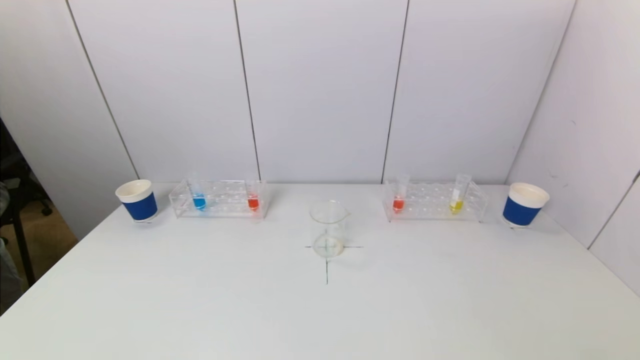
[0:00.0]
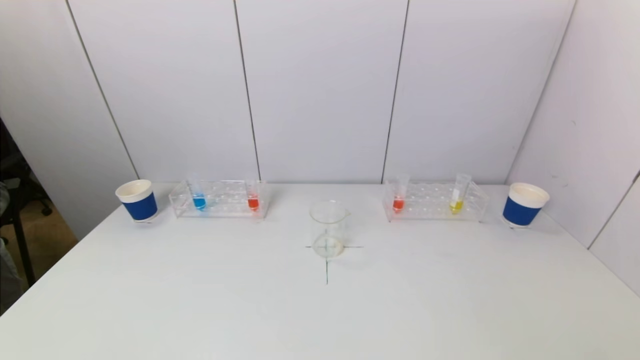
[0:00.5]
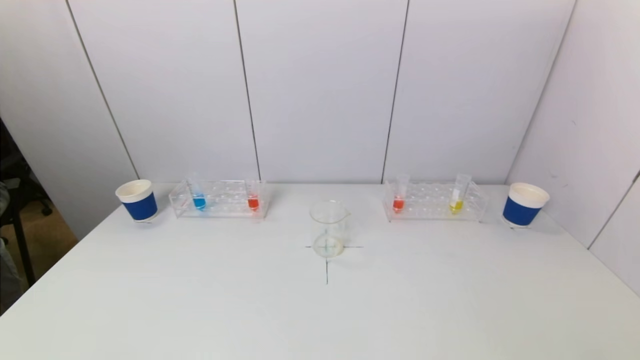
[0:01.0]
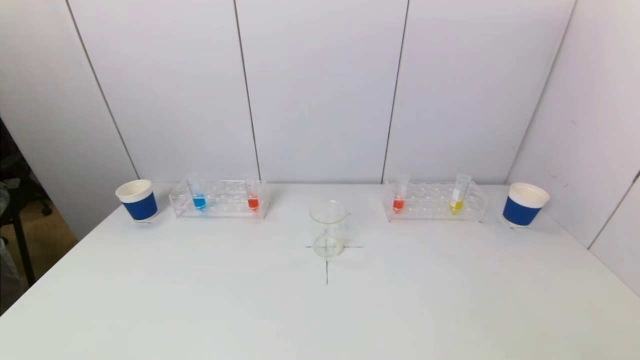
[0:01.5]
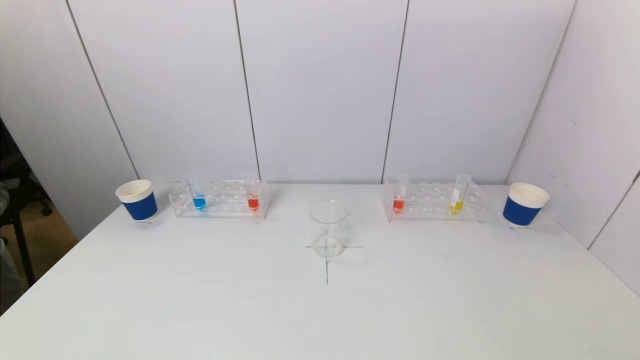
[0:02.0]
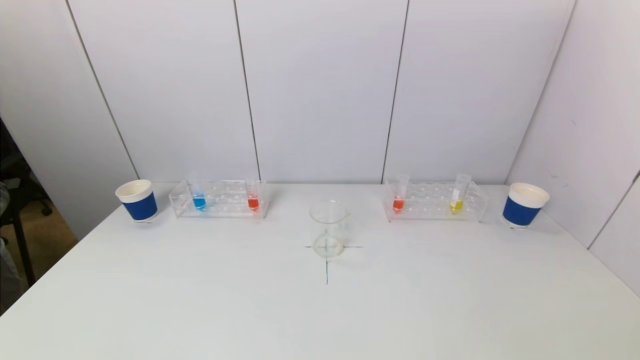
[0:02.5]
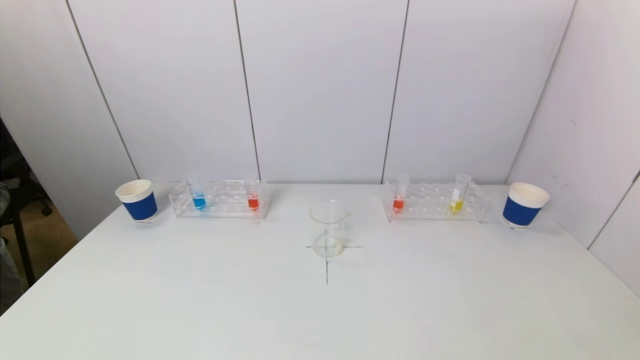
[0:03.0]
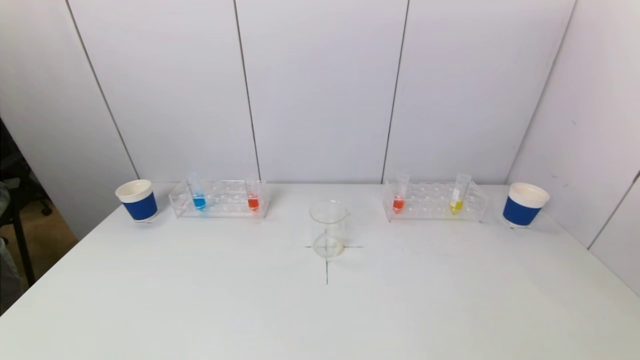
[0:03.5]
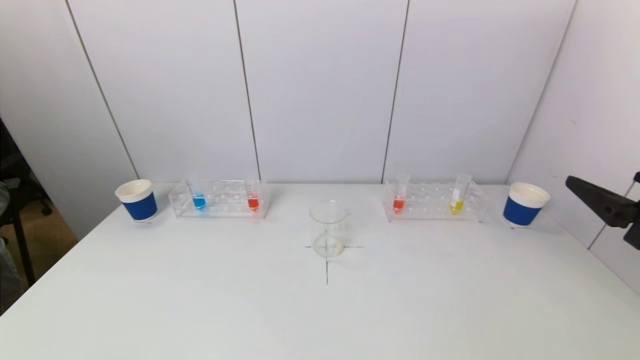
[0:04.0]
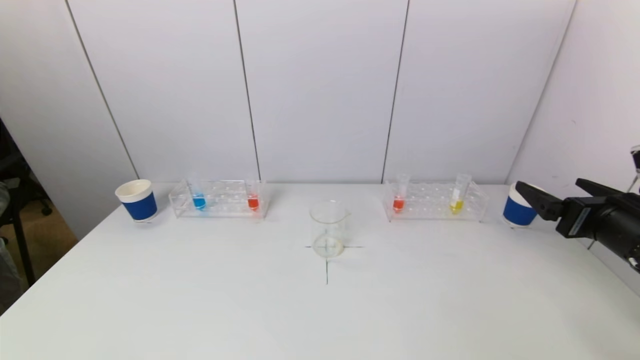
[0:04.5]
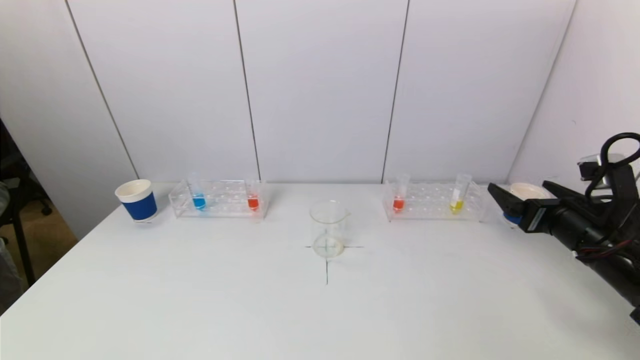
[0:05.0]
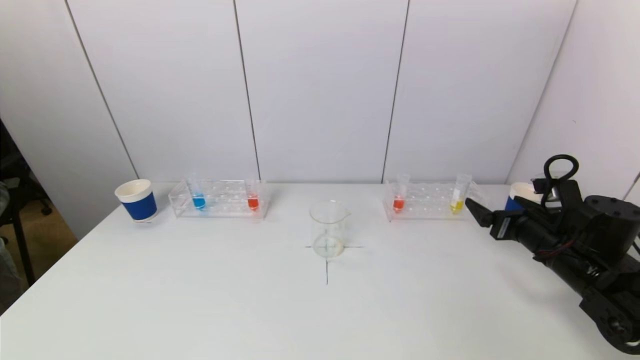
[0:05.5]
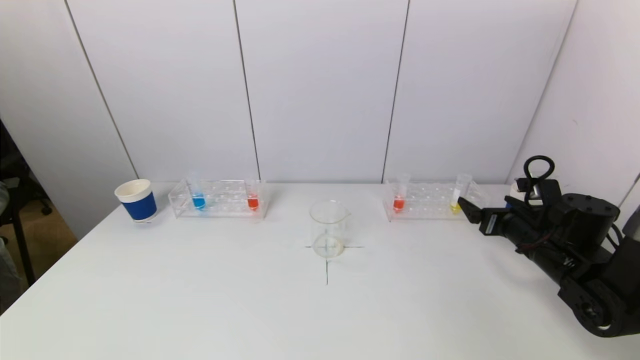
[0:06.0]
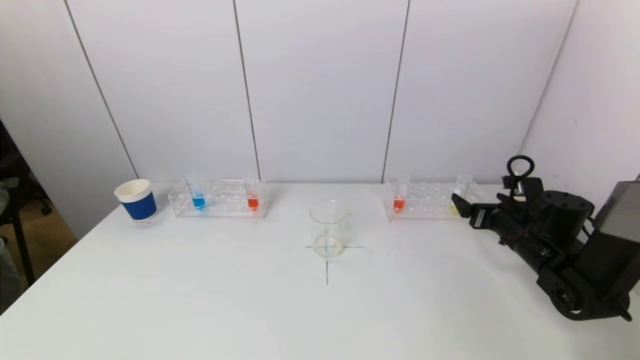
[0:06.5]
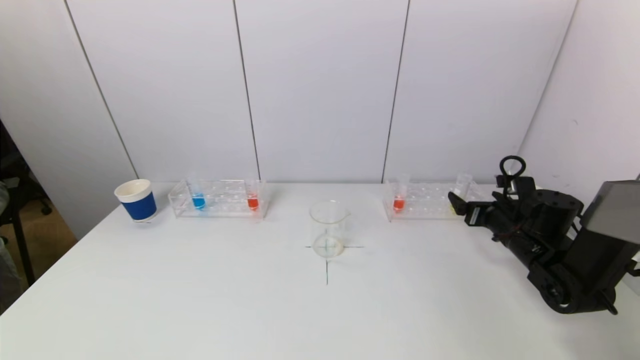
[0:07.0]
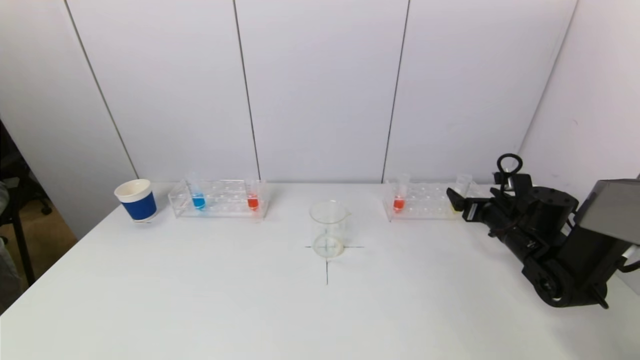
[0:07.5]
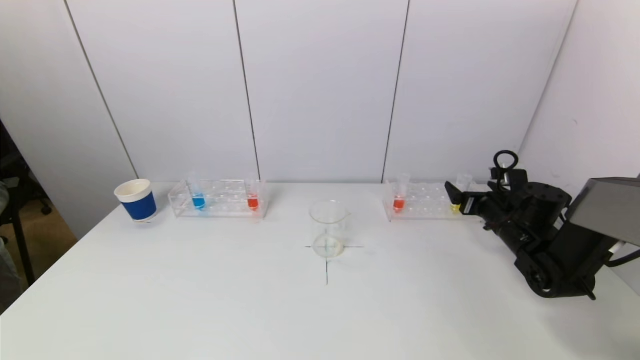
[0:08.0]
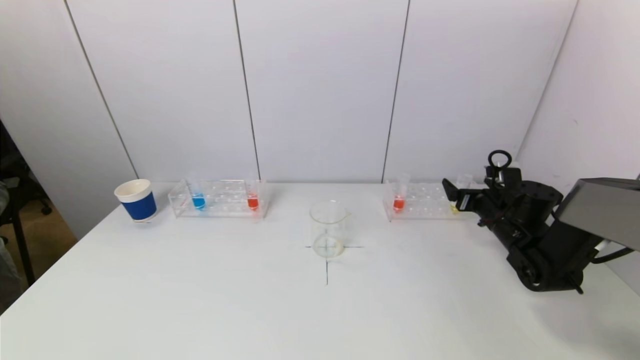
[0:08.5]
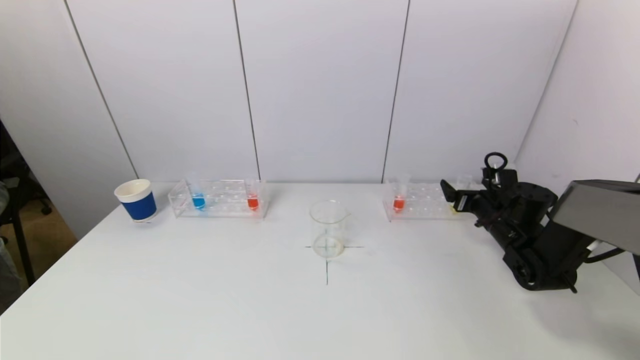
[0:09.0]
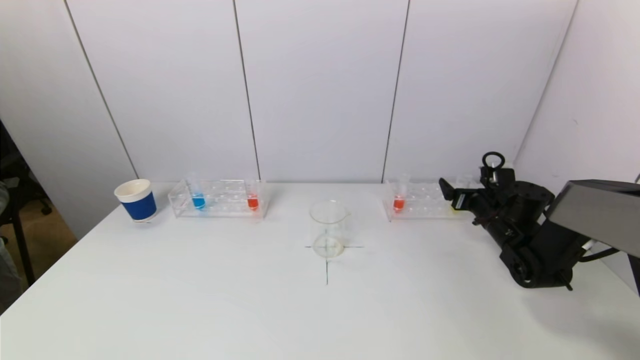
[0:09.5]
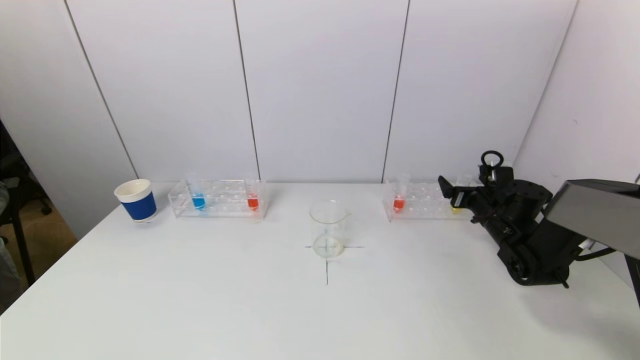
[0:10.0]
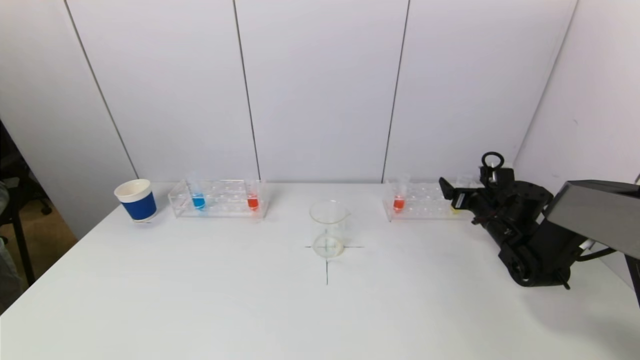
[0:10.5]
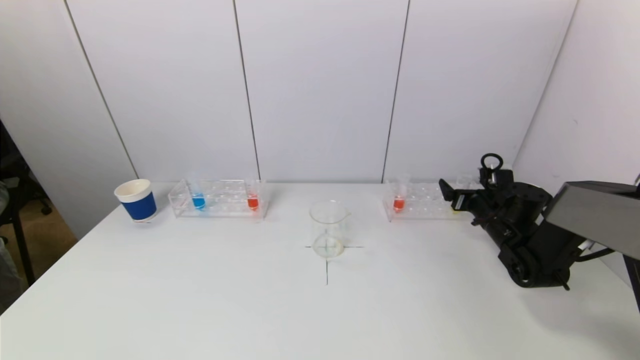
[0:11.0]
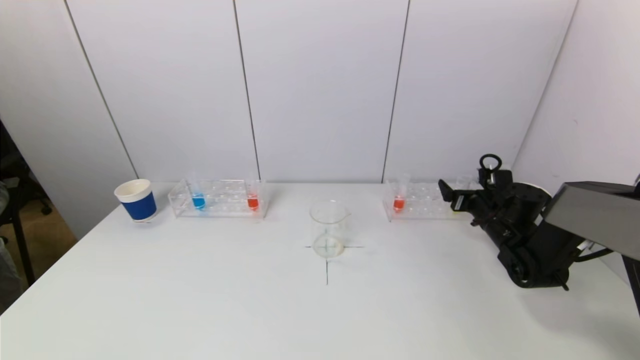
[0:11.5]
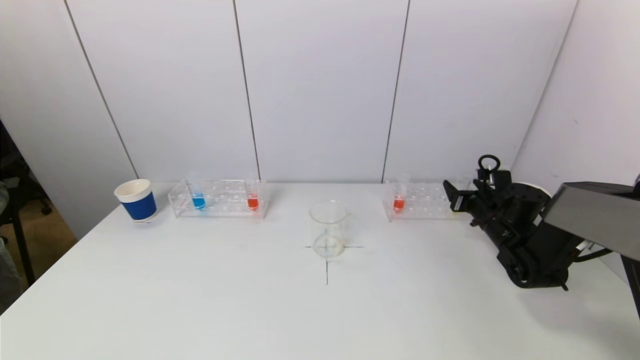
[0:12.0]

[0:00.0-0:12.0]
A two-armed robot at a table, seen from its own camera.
Task of the whole recording: pick up a test tube with pigment on left test tube rack and a test tube with pigment on right test tube rack by grippers and pour them into the beaker.
0:02.0 to 0:04.0: The right gripper goes some 20 cm forward and upward.
0:04.0 to 0:06.0: The right gripper moves forward and downward, approximately 20 cm.
0:06.0 to 0:08.0: The right gripper is displaced forward by some 5 cm.
0:08.0 to 0:10.0: The grippers make only small movements.
0:10.0 to 0:12.0: The right gripper closes its fingers.

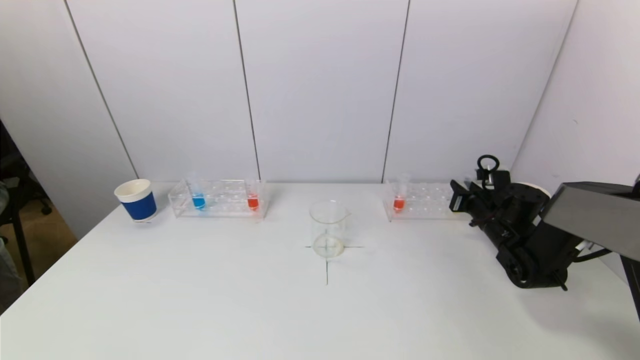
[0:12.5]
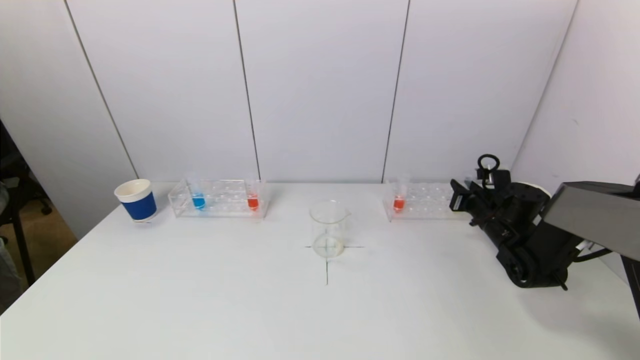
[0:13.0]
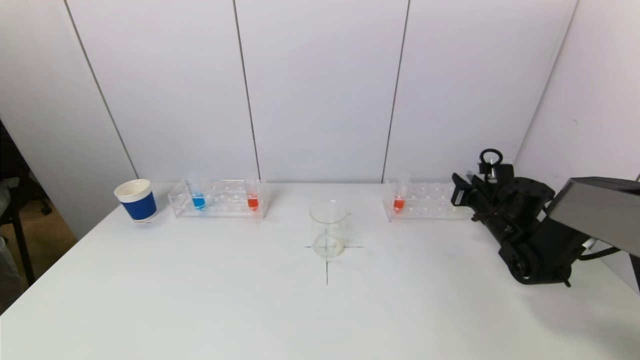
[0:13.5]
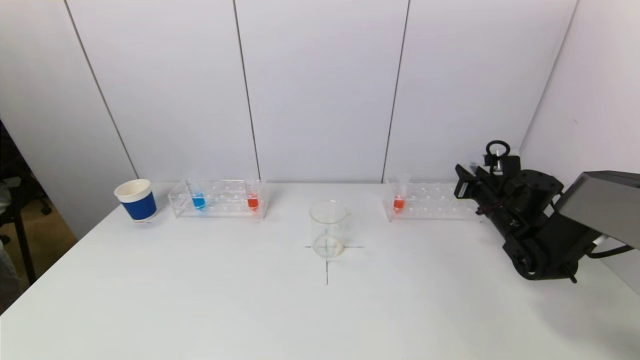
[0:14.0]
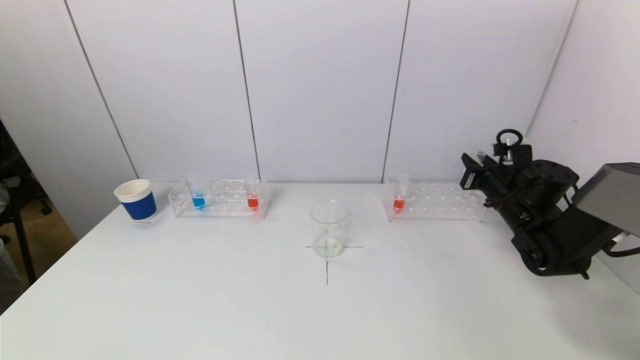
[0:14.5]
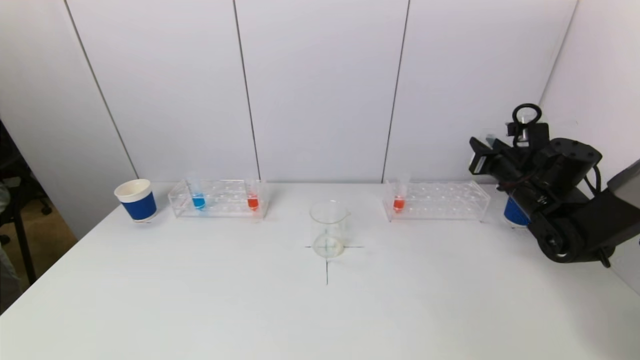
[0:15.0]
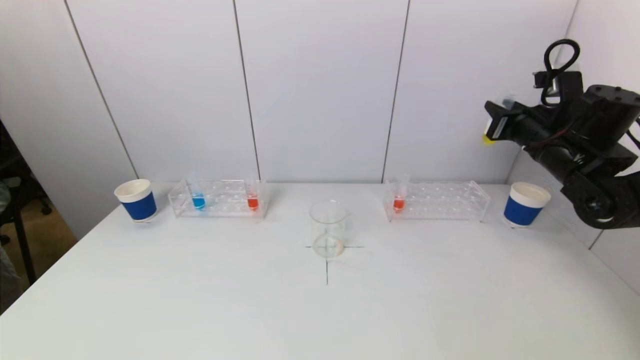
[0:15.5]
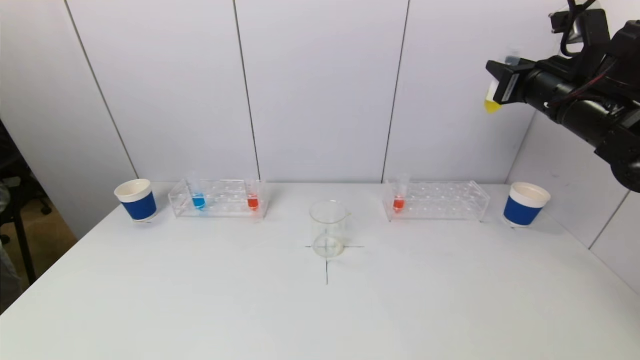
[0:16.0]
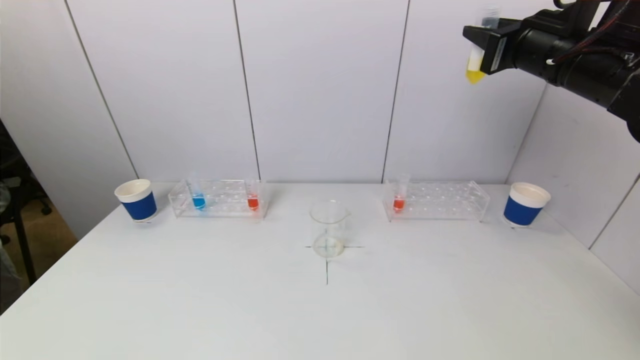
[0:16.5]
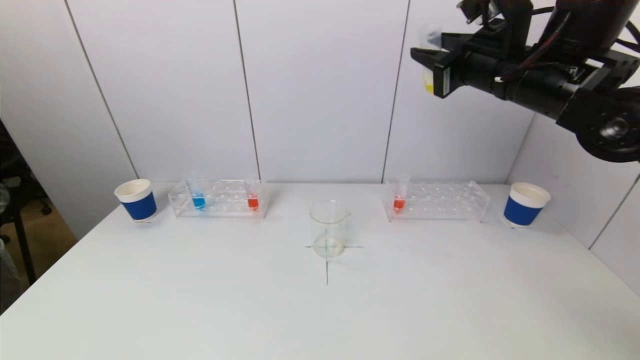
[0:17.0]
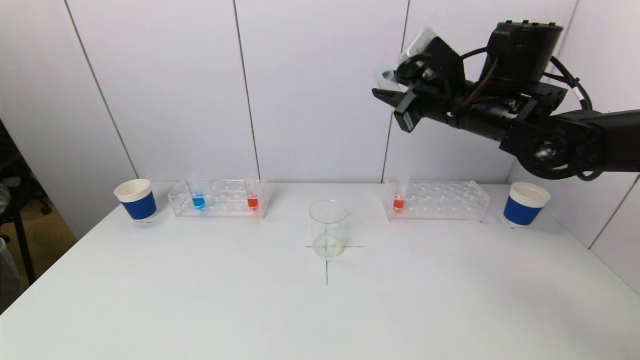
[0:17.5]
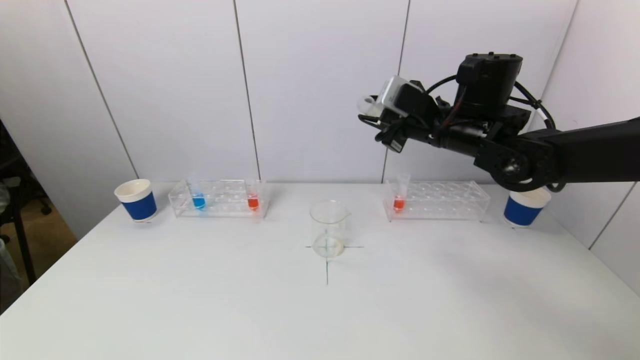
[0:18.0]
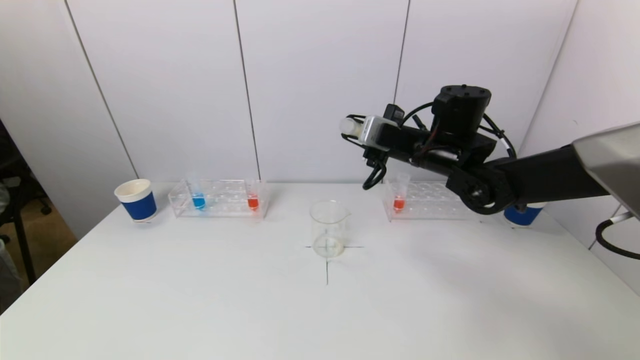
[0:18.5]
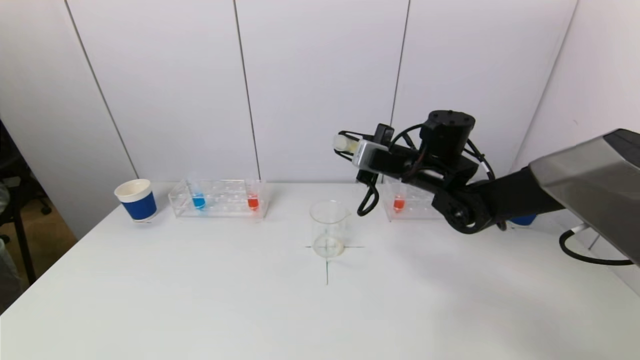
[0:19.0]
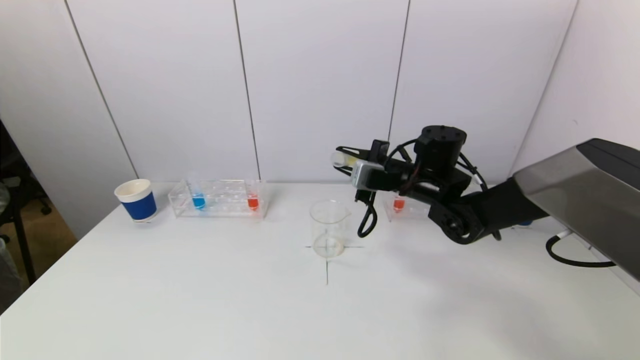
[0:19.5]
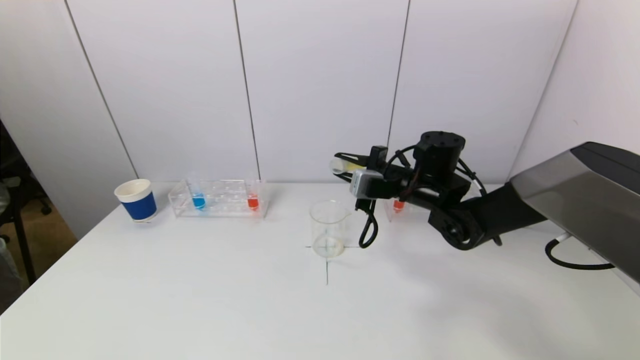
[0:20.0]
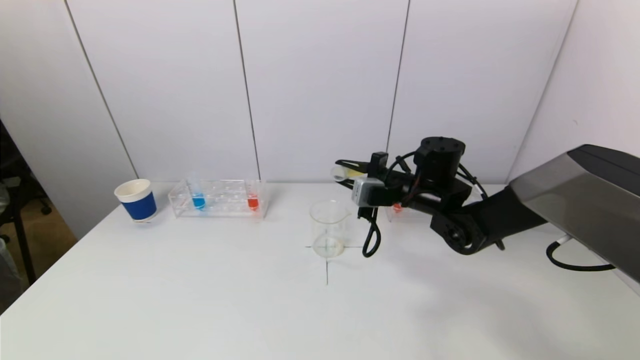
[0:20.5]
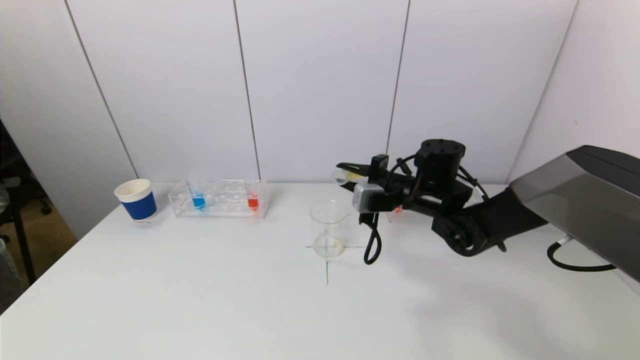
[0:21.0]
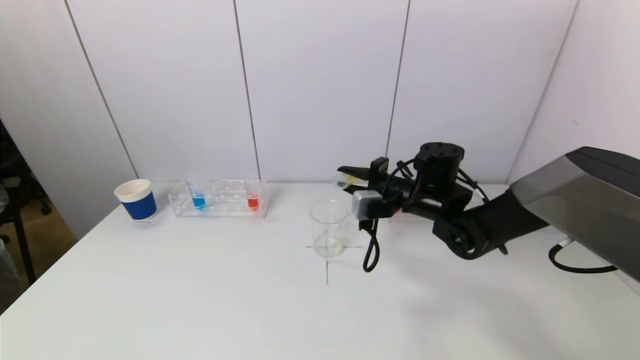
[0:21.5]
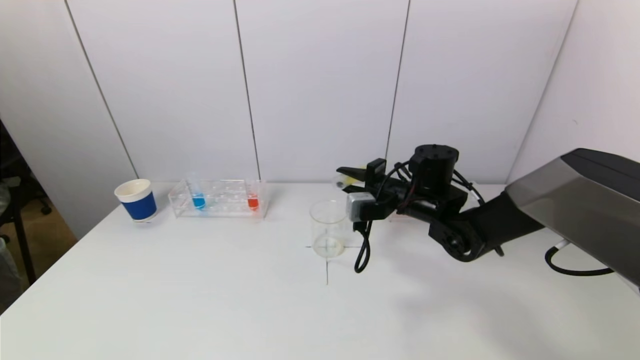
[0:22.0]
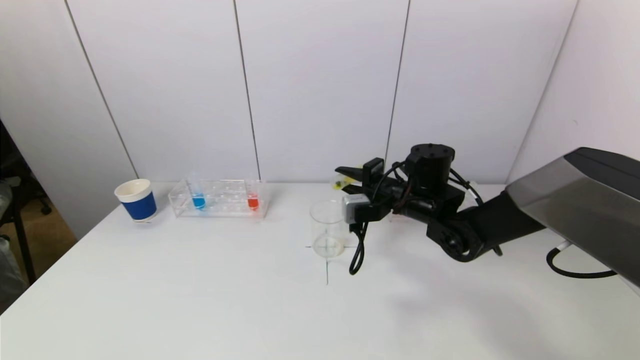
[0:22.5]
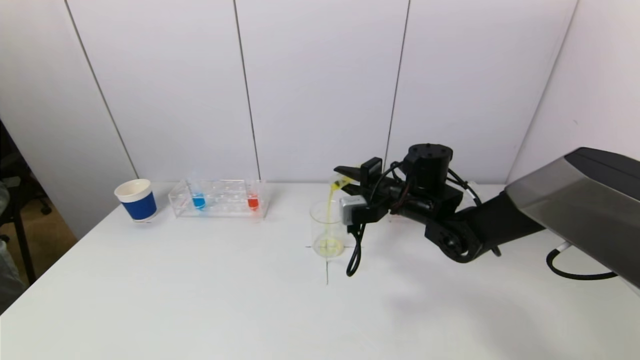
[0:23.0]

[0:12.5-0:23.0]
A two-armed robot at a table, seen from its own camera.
Task of the whole recording: pick up a test tube with pigment on left test tube rack and a test tube with pigment on right test tube rack by grippers and pour them into the beaker.
0:12.5 to 0:14.5: The right gripper heads upward, covering approximately 5 cm.
0:14.5 to 0:16.5: The right gripper travels upward by about 25 cm.
0:16.5 to 0:19.0: The right gripper shifts some 20 cm downward and to the left.
0:19.0 to 0:21.0: The grippers stay close to where they were, moving slightly.
0:21.0 to 0:23.0: The grippers stay close to where they were, moving slightly.
